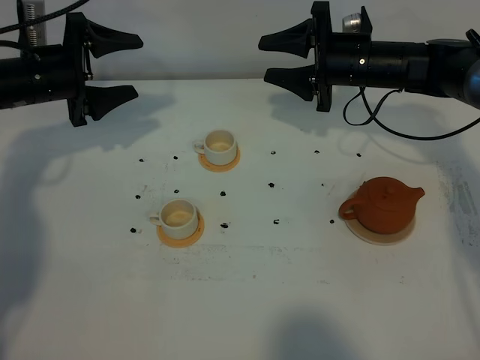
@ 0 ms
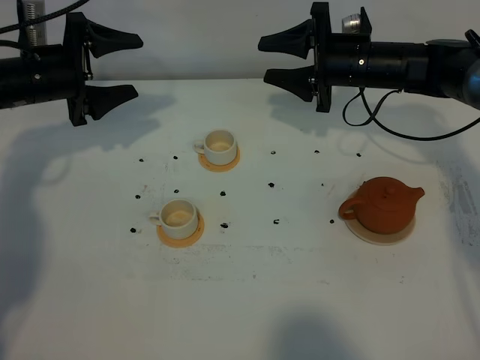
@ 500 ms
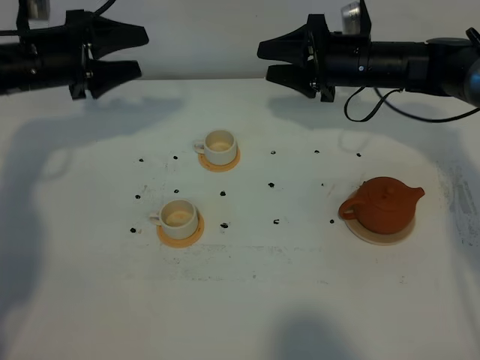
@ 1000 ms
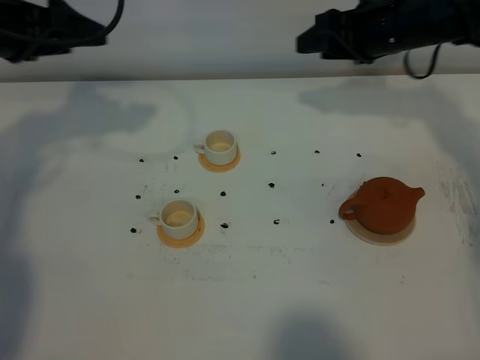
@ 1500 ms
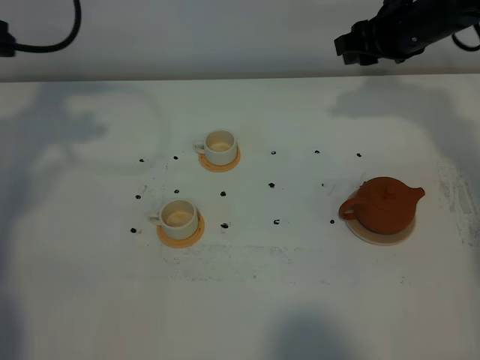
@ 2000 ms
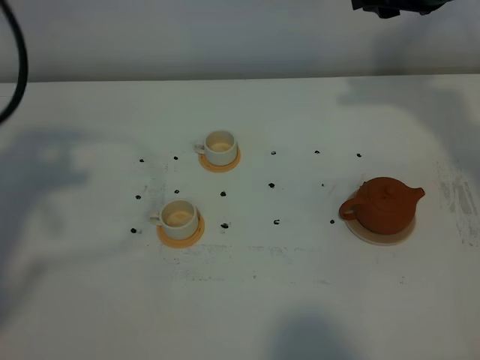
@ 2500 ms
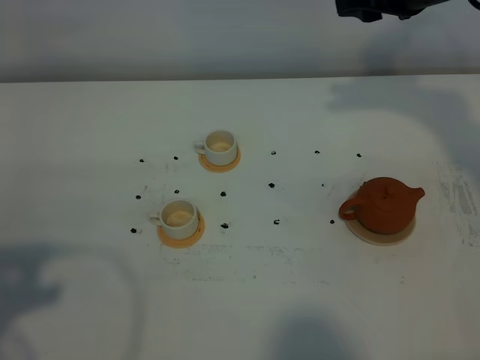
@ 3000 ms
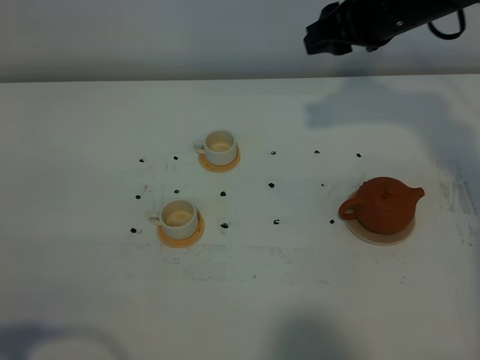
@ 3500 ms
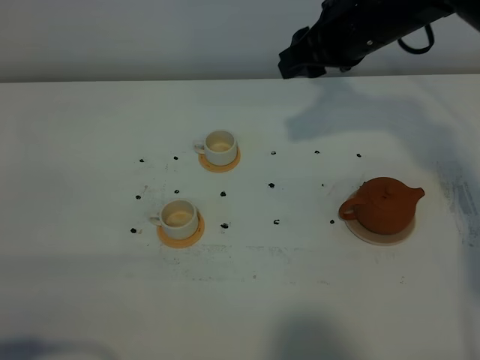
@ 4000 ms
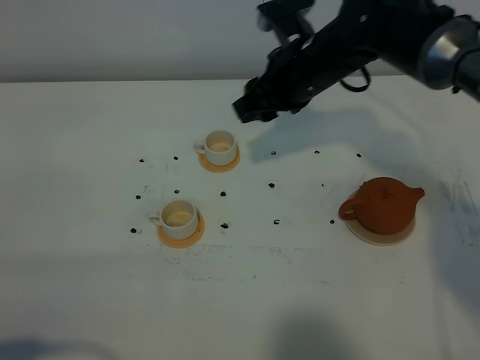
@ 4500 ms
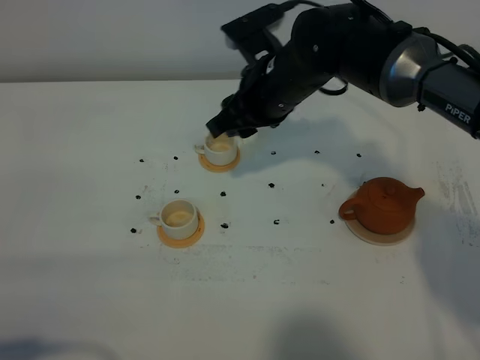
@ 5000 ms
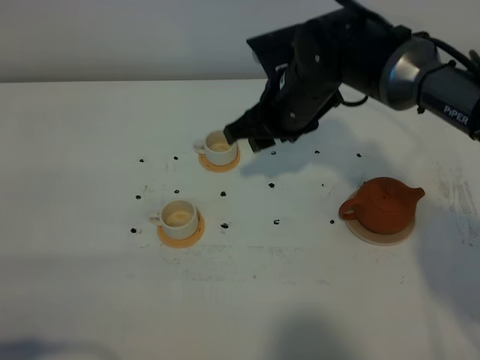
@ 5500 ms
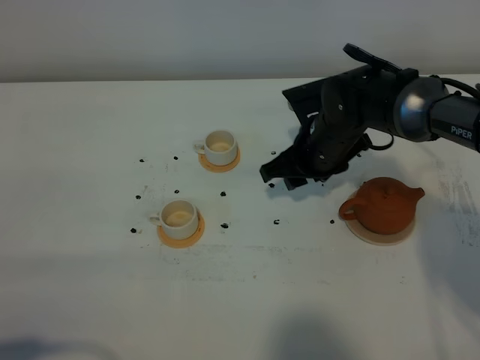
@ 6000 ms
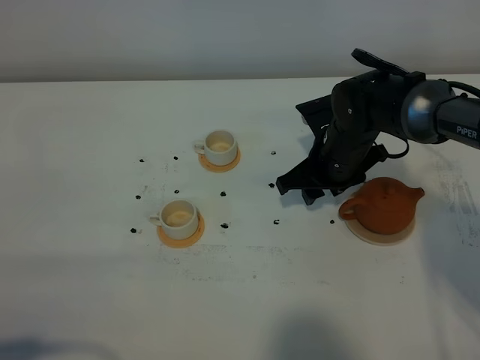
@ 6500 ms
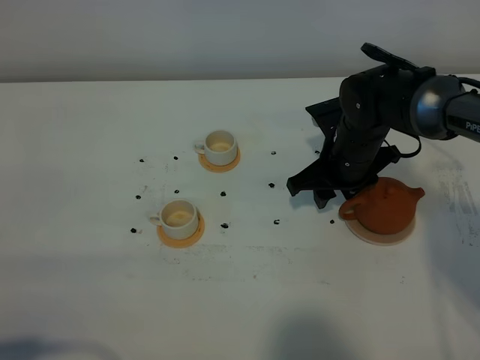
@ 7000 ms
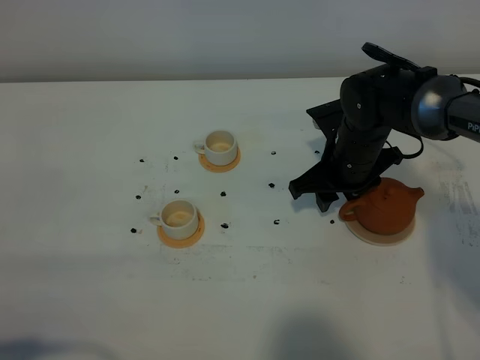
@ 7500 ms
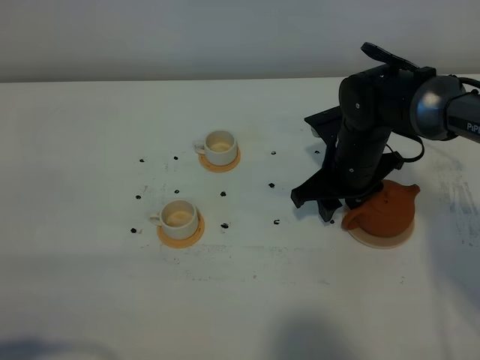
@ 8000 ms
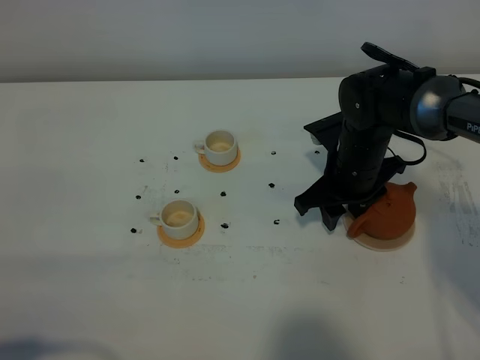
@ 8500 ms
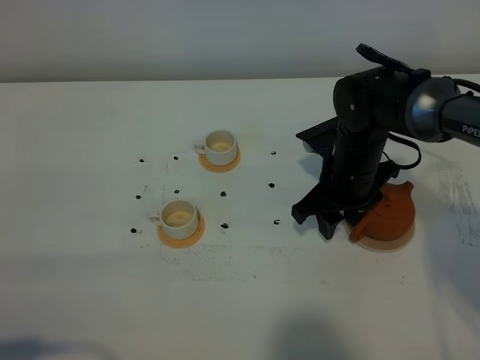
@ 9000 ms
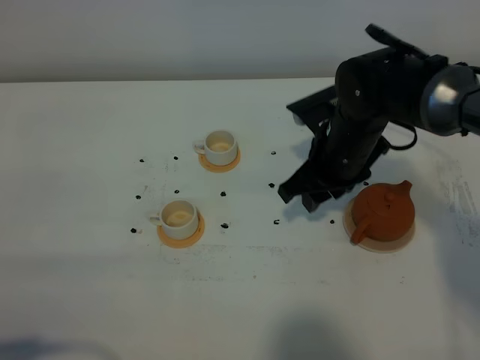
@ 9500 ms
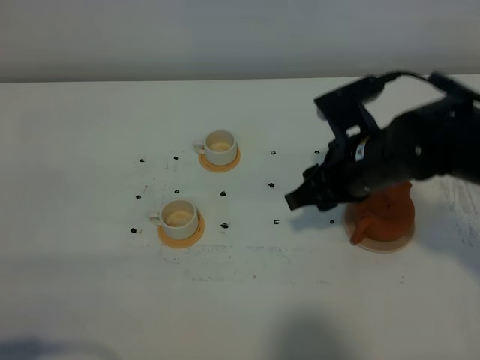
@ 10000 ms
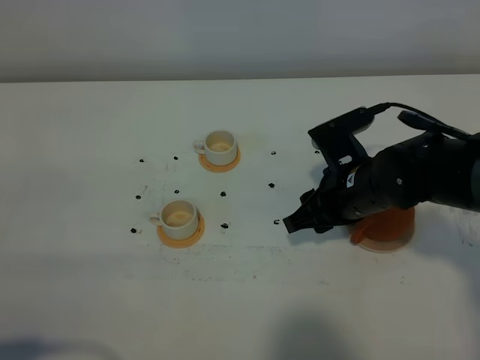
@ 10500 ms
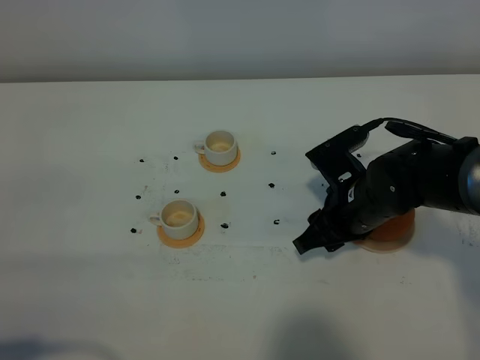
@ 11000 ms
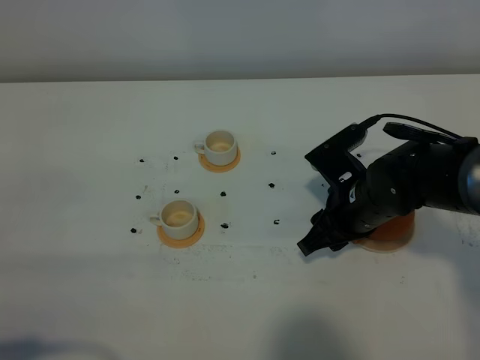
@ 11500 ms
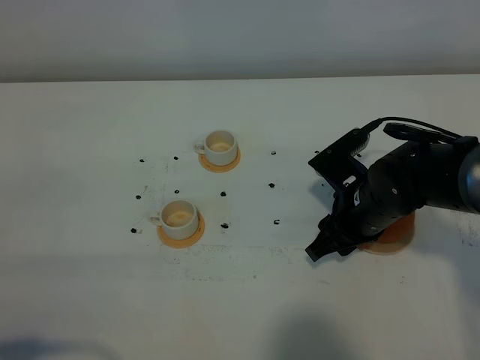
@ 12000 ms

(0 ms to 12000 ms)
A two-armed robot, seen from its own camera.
Task of the whole recording: grasp the brown teapot and pour the tea into the two white teacups one by one, put the brown teapot back in its original place.
0 ms - 2000 ms: The right gripper heads upward, covering about 10 cm. Meanwhile the left gripper goes approximately 20 cm upward and backward.
2000 ms - 4000 ms: The right gripper moves to the left, some 5 cm, while the left gripper heads backward, covering approximately 35 cm.
4000 ms - 6000 ms: The right gripper goes some 15 cm downward.
6000 ms - 8000 ms: The grippers stay close to where they were, moving slightly.
8000 ms - 10000 ms: The right gripper heads backward and upward, covering about 10 cm.
10000 ms - 12000 ms: The right gripper shifts roughly 5 cm downward.

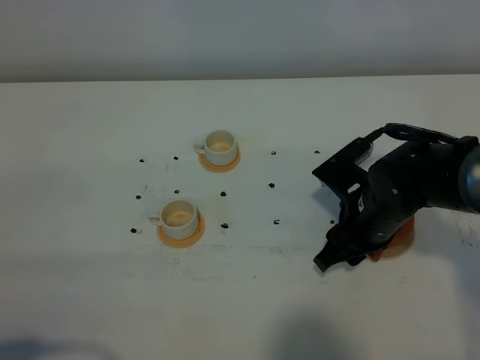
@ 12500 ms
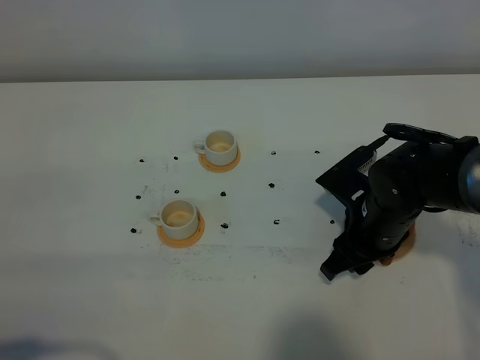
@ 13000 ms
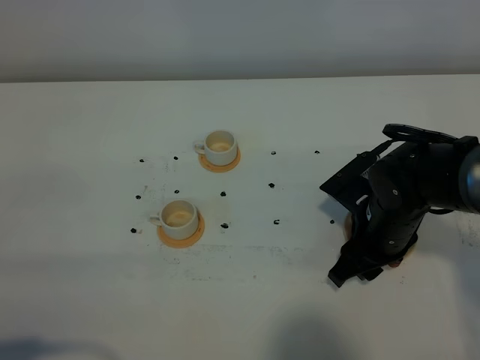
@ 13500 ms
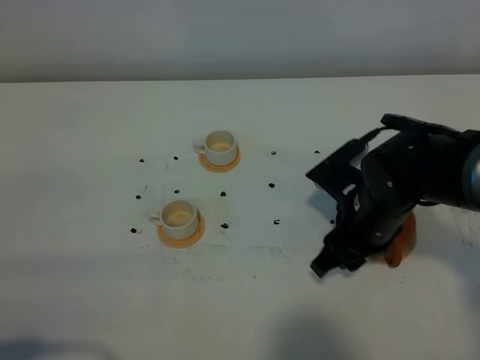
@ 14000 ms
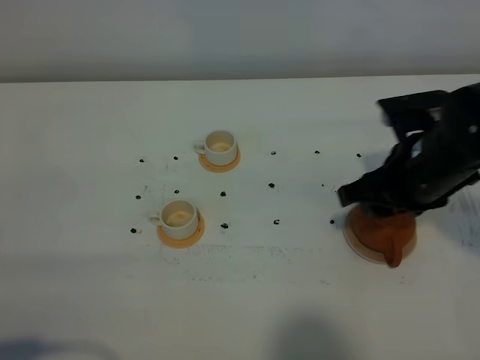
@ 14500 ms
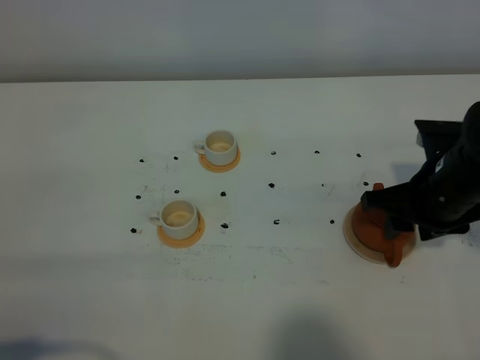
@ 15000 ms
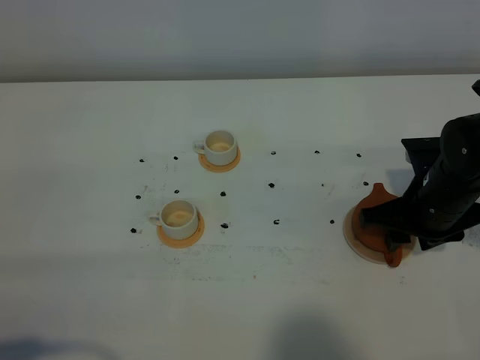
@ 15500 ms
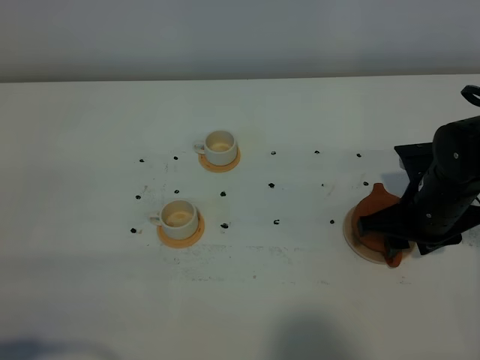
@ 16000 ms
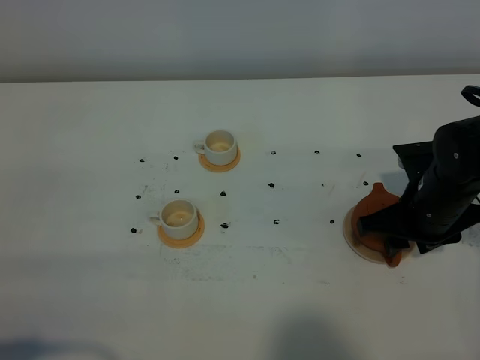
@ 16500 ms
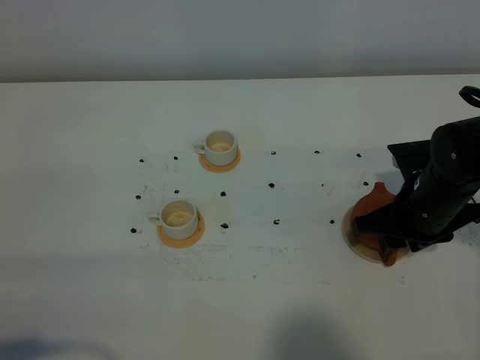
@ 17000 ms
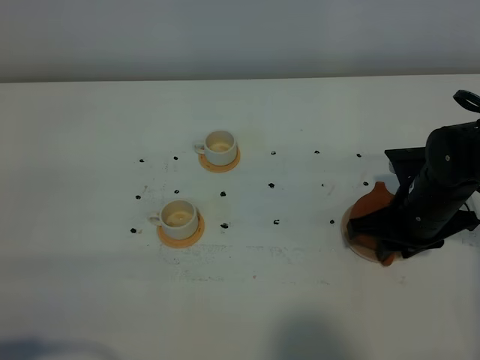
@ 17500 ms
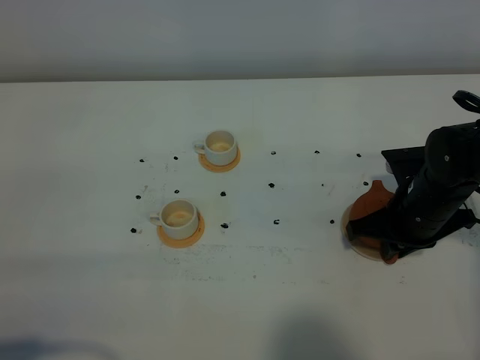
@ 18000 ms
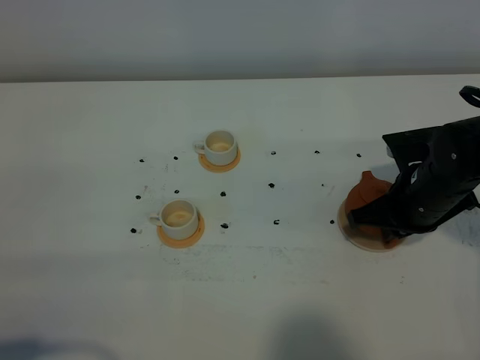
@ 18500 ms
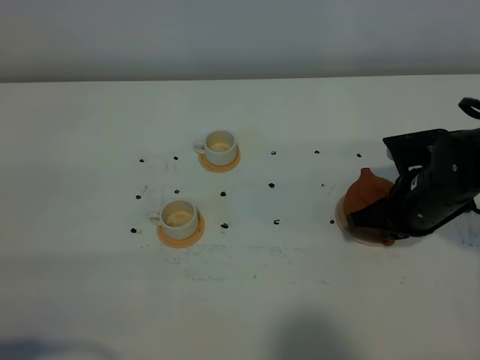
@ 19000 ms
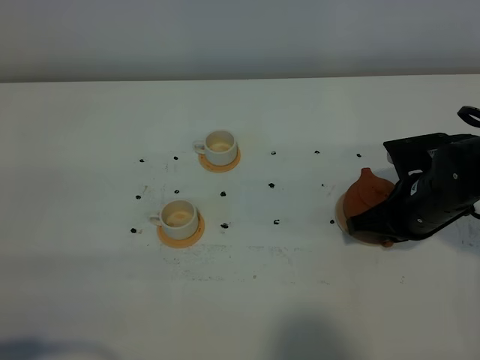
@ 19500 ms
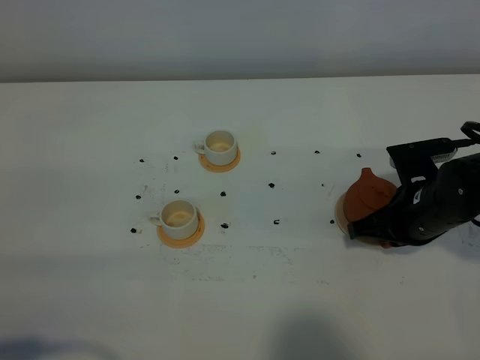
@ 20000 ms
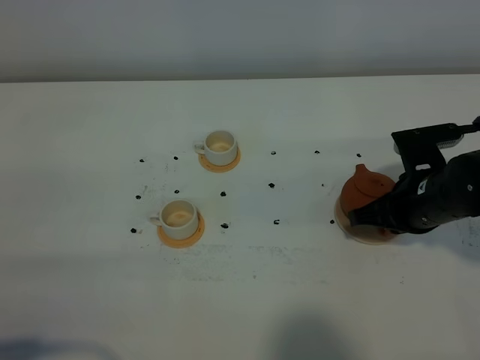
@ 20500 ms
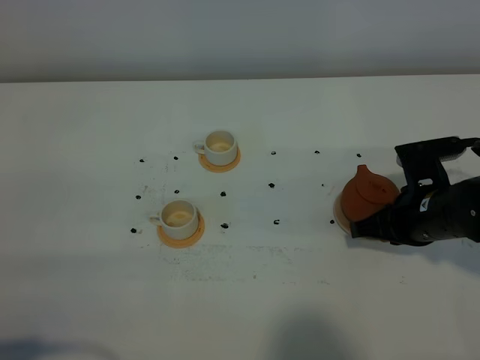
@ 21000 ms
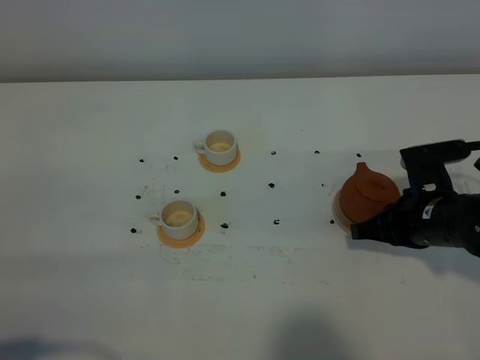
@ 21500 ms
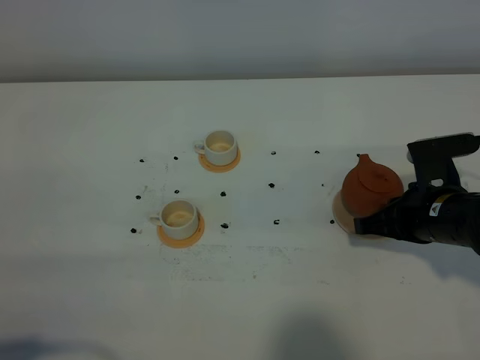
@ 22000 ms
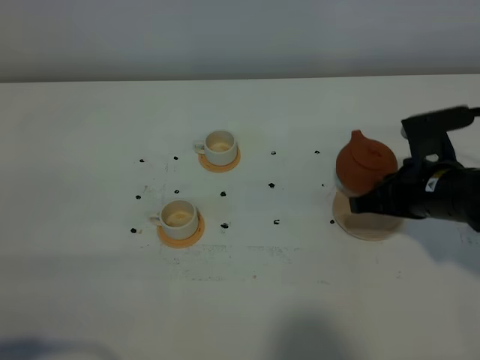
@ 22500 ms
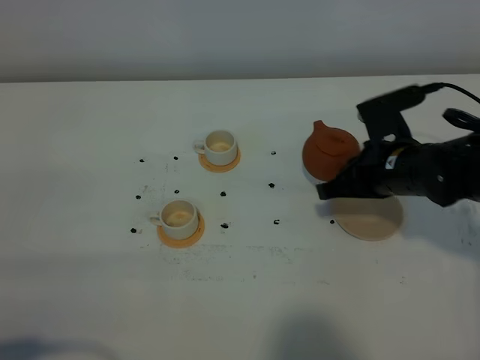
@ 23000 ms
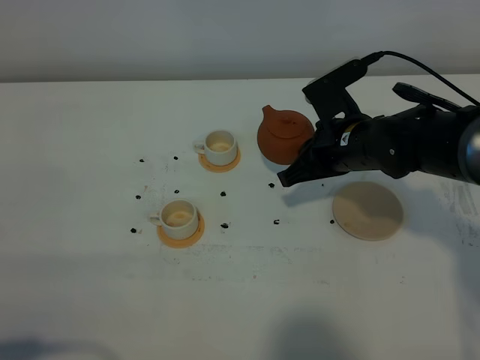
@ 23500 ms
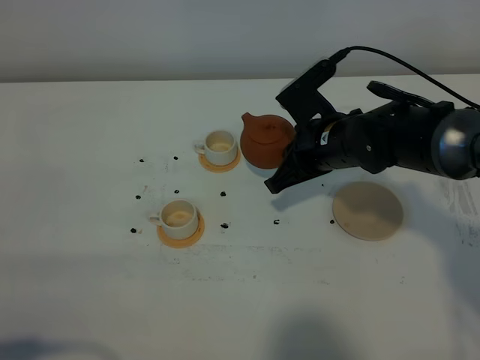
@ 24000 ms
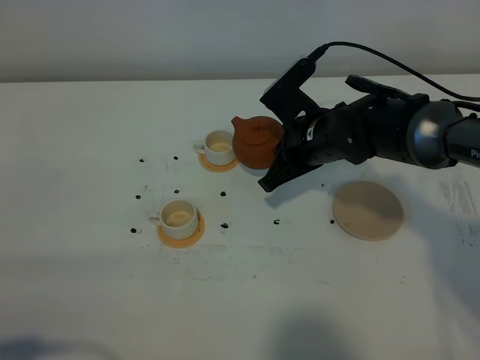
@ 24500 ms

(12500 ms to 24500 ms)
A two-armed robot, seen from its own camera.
Task of the whole recording: grasp the brown teapot and pour the tea into the two white teacups one by one, put the brown teapot back in its original place.
Step, 12500 ms - 22000 ms: Pick up the teapot with the right gripper.
12500 ms - 14500 ms: The right gripper heads upward, covering roughly 10 cm.
14500 ms - 16500 ms: The right gripper travels downward by some 5 cm.
16500 ms - 18500 ms: The right gripper closes.
18500 ms - 20500 ms: The grippers stay close to where they were, moving slightly.
20500 ms - 22500 ms: The grippers make only small movements.
22500 ms - 24500 ms: The right gripper shifts some 15 cm to the left and forward.

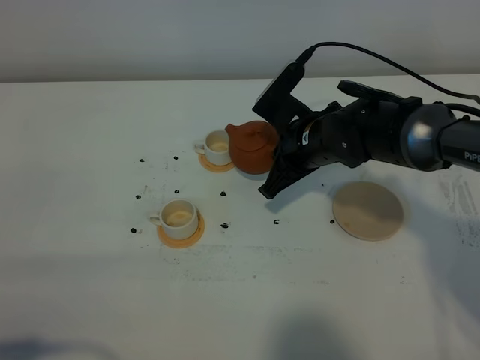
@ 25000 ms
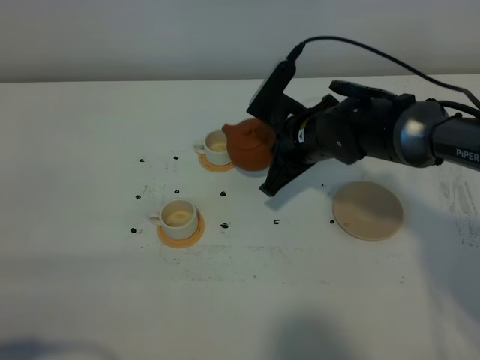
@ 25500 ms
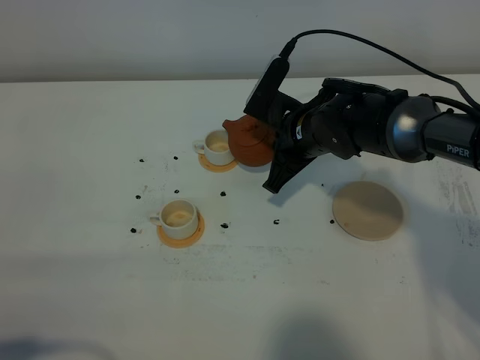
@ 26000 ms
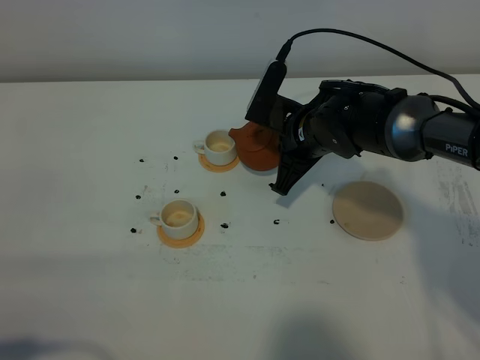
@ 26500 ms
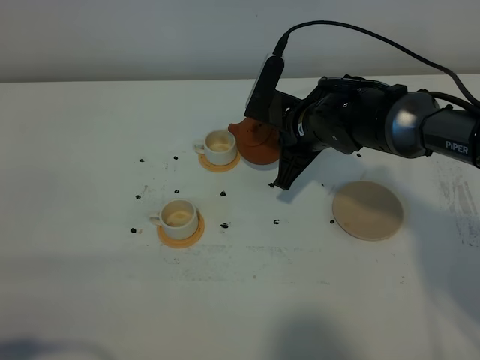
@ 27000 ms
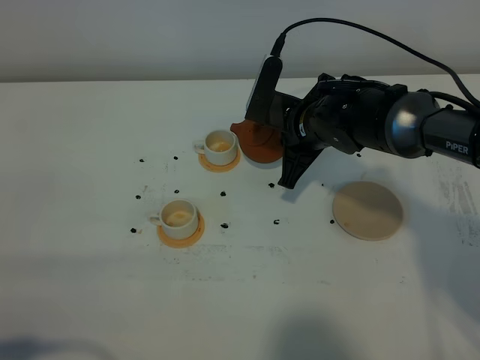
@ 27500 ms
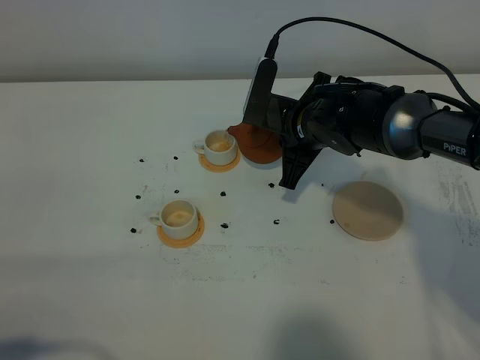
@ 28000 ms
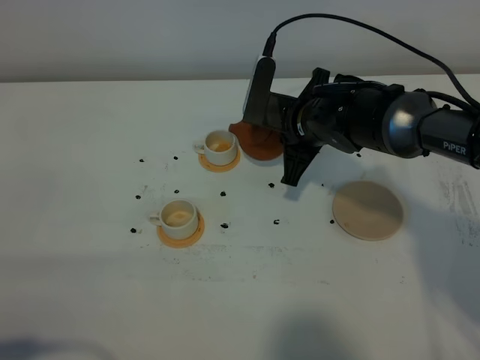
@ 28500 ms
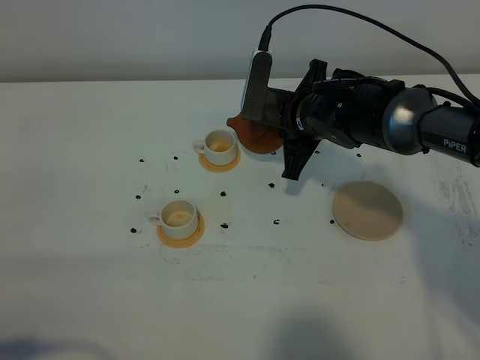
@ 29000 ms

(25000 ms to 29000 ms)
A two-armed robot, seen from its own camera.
Task of the whole recording: grasp the brown teapot and pour the tea into the two white teacups one by one, put the brown teapot back in its original place.
25000 ms - 27000 ms: The grippers stay close to where they were, moving slightly.
27000 ms - 29000 ms: The grippers stay close to where they were, moving slightly.
